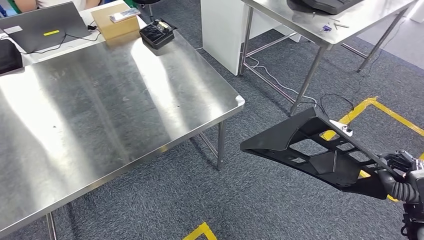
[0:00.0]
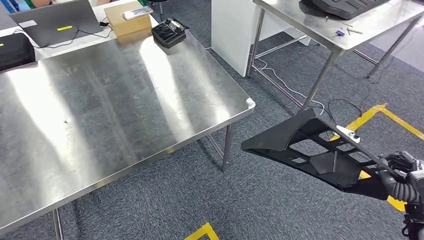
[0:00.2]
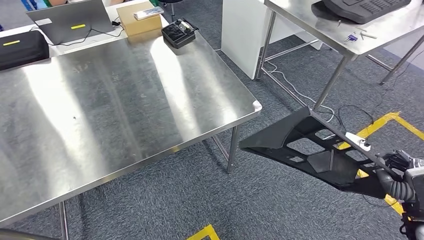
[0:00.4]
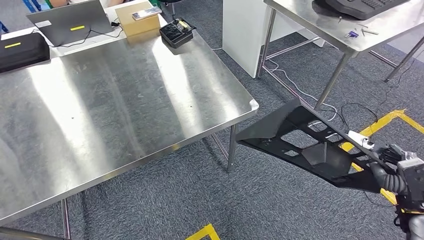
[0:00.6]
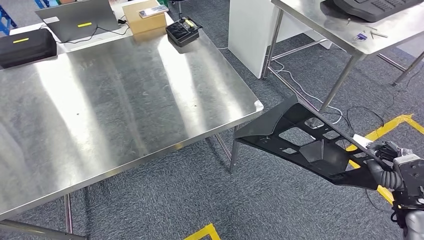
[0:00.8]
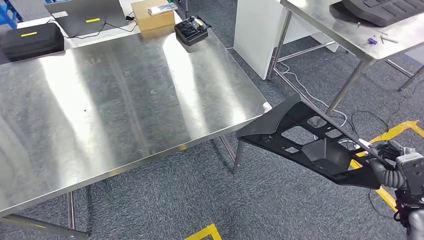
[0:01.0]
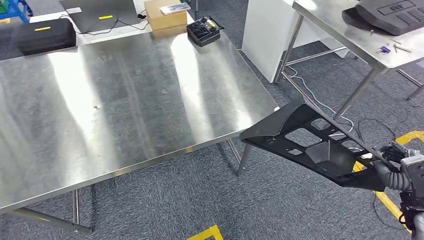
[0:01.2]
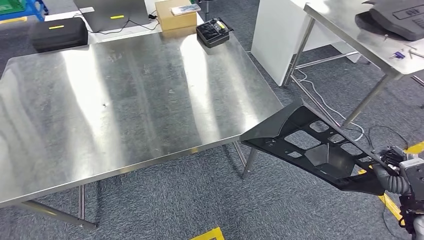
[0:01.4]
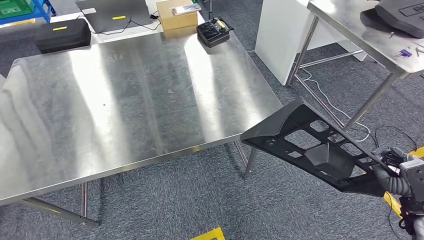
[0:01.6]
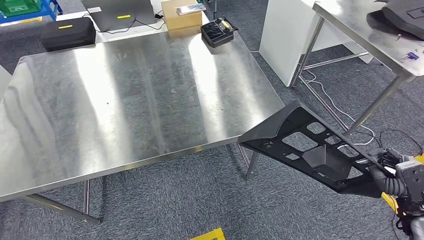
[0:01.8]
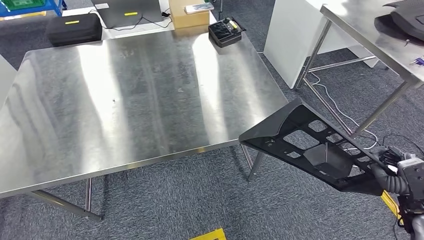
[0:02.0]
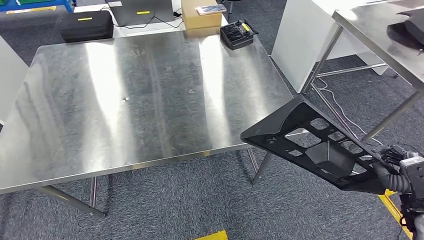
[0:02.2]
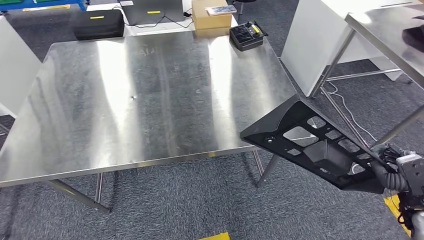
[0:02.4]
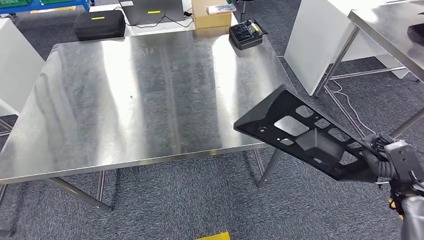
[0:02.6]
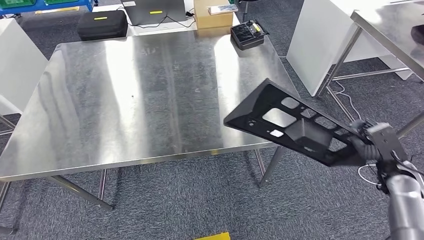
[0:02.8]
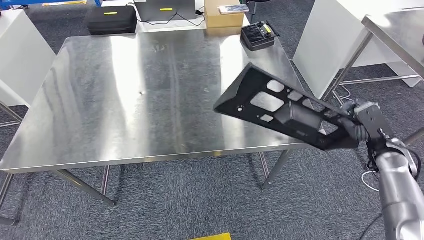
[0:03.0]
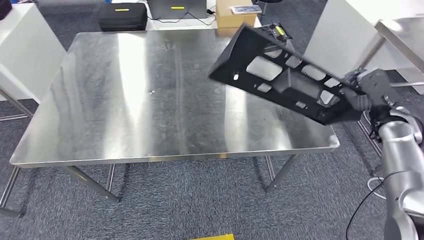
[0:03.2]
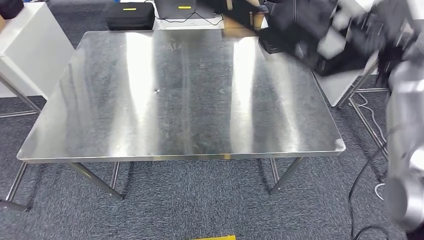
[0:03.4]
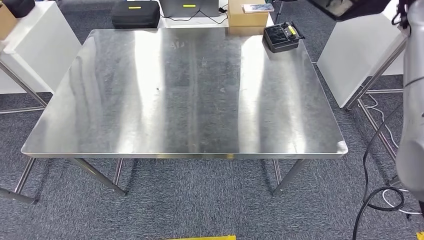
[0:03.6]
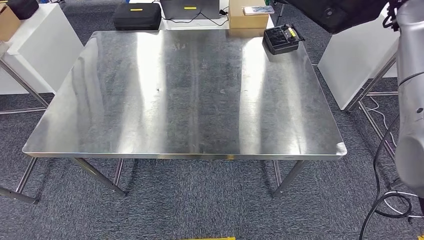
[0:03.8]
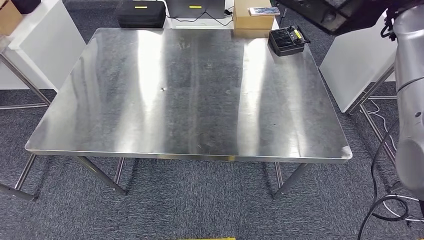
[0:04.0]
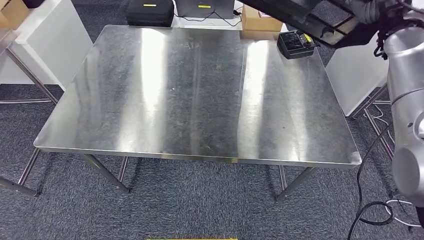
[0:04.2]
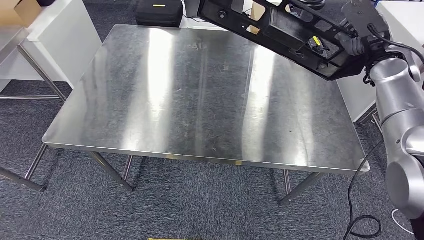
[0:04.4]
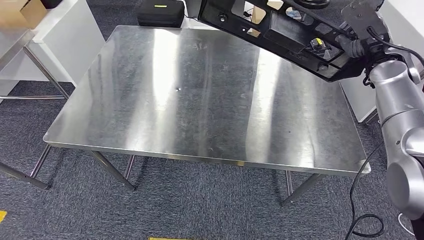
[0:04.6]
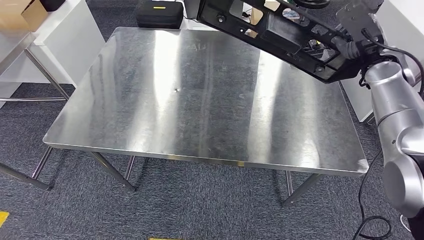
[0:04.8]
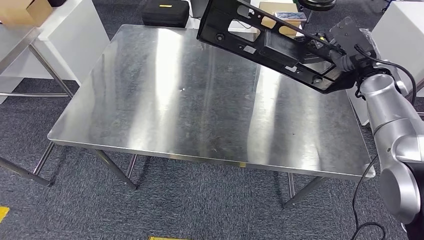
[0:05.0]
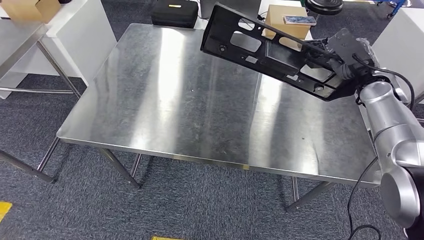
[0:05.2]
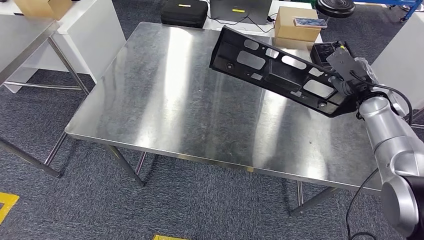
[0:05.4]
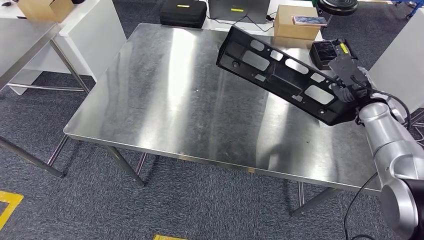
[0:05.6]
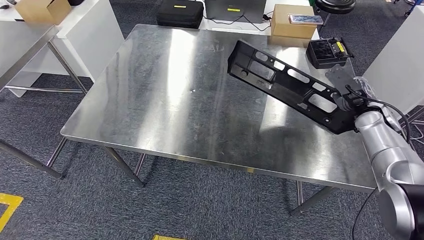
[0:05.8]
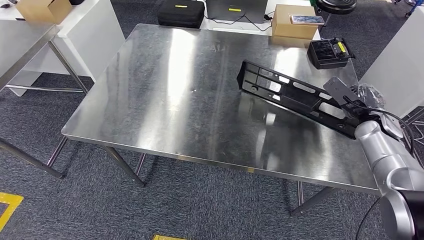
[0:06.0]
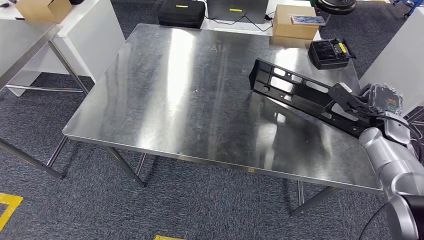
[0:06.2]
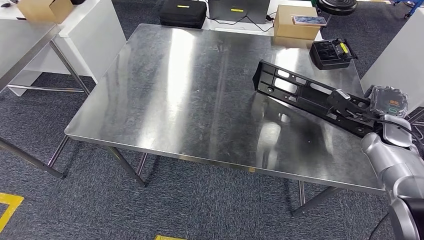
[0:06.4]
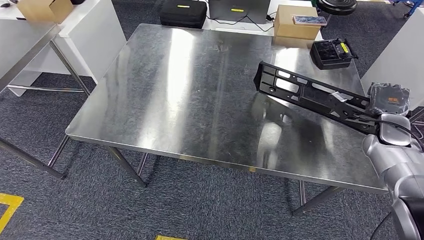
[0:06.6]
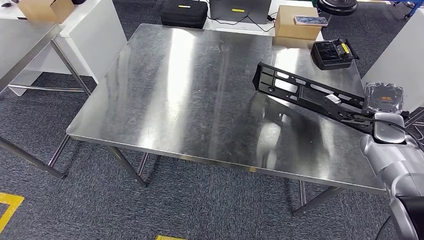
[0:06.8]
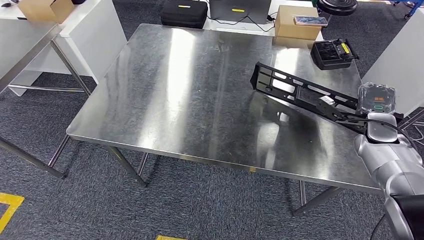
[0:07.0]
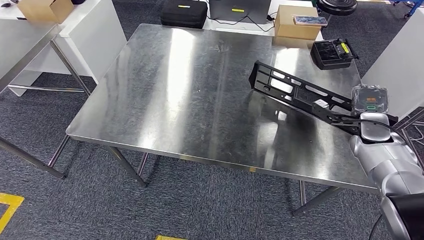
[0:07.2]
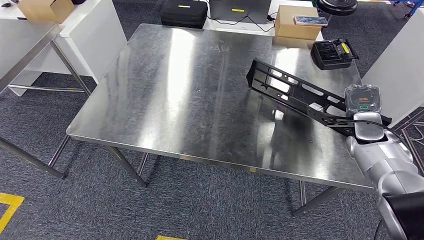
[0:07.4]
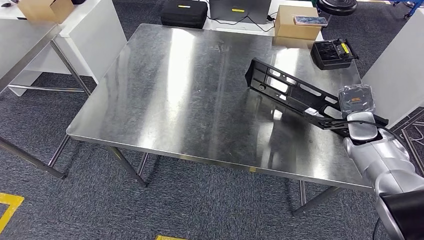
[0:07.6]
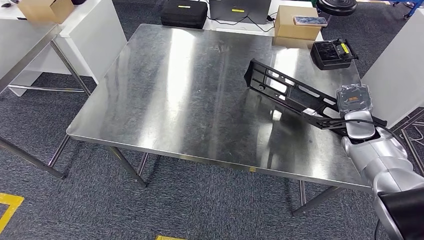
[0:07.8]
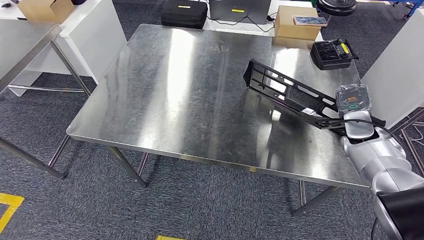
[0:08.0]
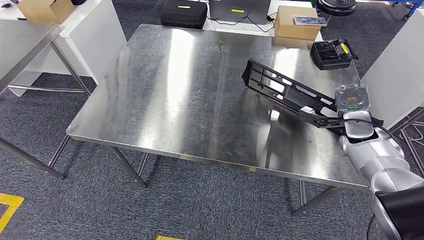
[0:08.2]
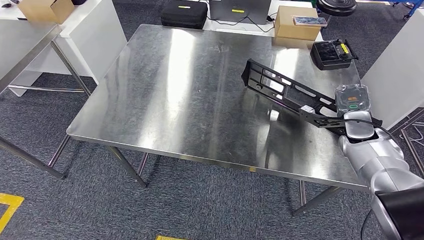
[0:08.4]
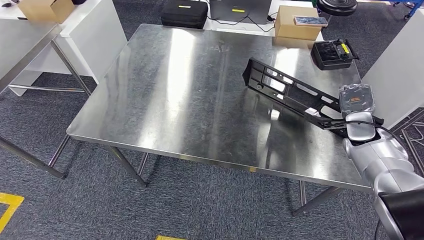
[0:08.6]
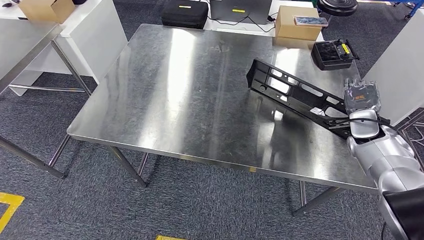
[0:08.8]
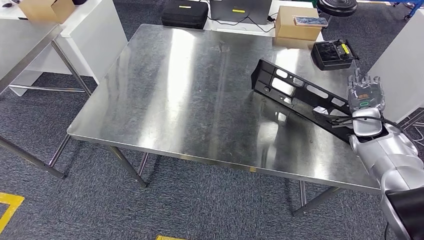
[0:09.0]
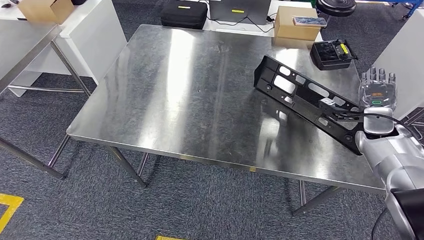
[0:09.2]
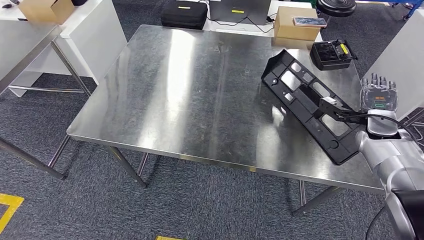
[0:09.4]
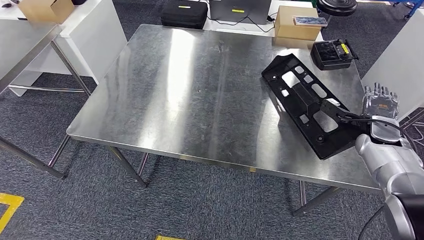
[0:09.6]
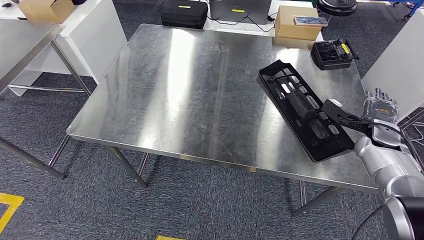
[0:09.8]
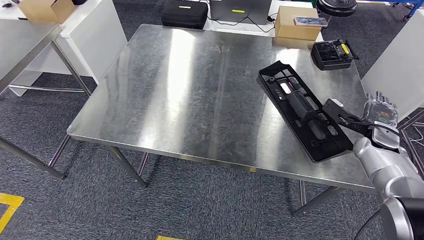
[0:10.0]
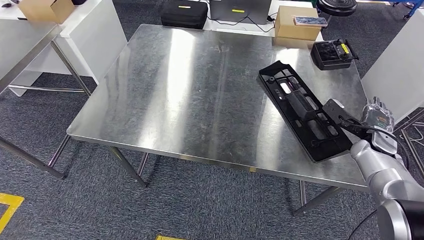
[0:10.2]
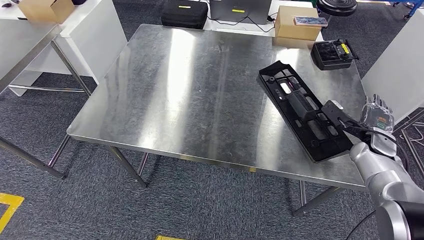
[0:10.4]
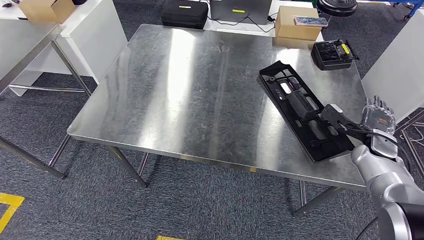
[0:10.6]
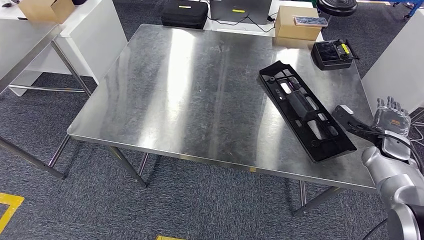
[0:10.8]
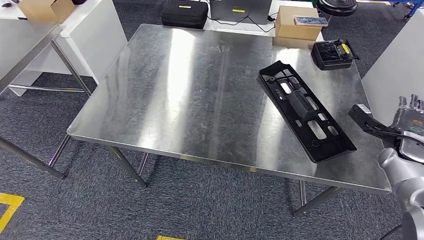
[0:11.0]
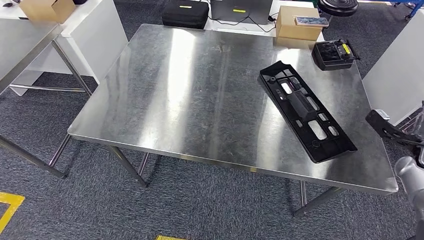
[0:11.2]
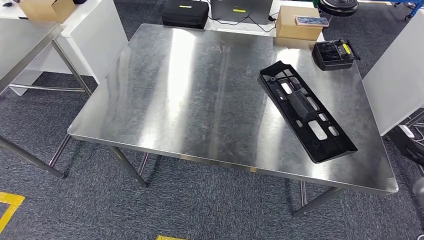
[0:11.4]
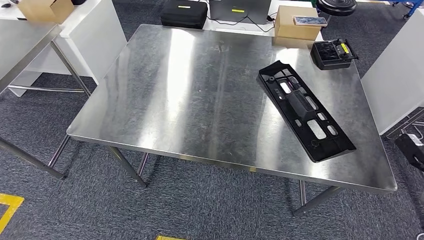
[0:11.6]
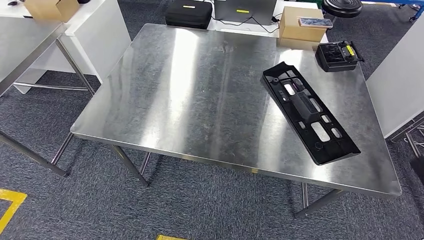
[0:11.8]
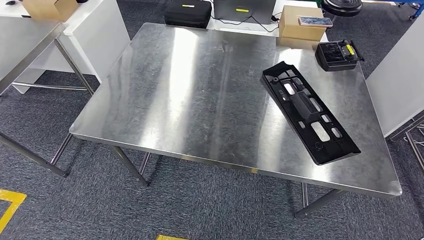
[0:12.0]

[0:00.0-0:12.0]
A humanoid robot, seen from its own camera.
Step, 0:00.0 to 0:11.6: Insert the large material into the corresponding slot on the workbench.
0:07.6 to 0:09.0: The hands make only small movements.
0:09.0 to 0:10.4: The right hand ends up roughly 5 cm from where it was.
0:10.4 to 0:12.0: The right hand moves backward and to the right, some 35 cm.

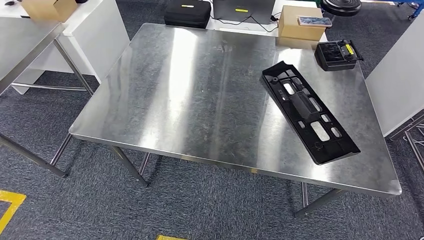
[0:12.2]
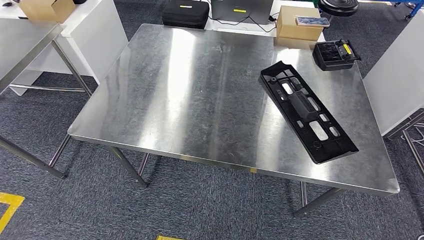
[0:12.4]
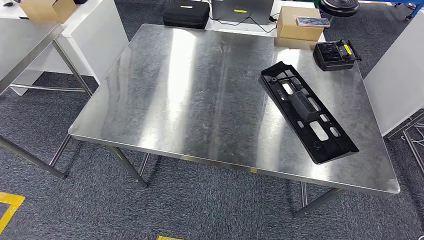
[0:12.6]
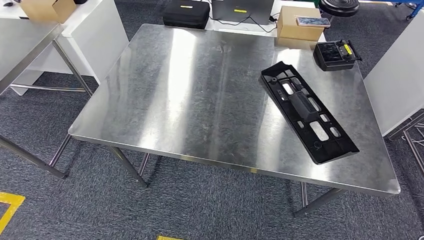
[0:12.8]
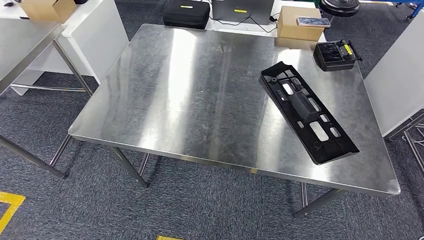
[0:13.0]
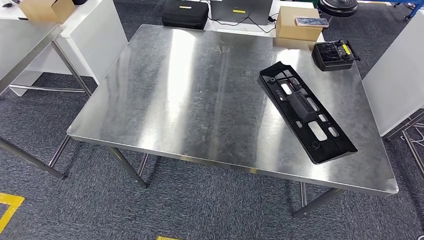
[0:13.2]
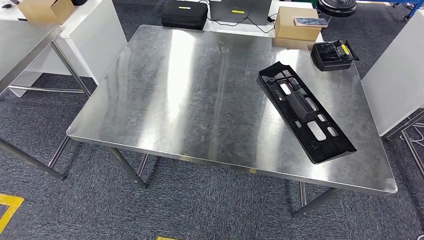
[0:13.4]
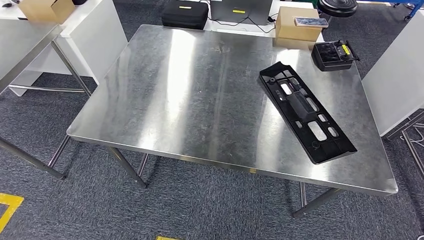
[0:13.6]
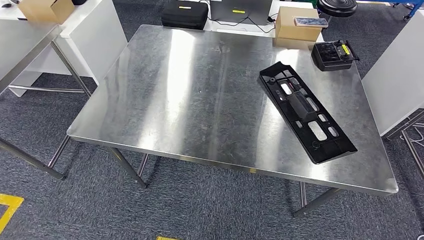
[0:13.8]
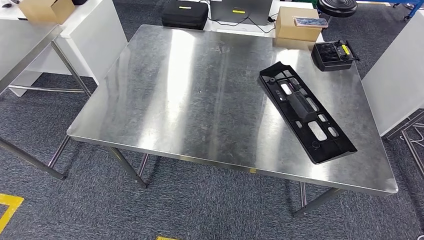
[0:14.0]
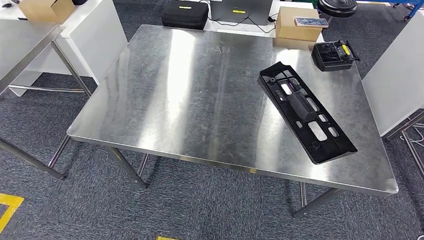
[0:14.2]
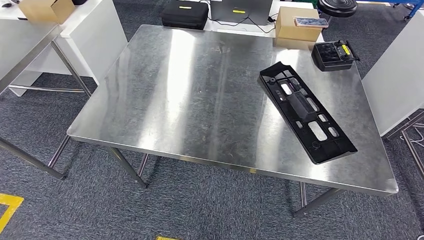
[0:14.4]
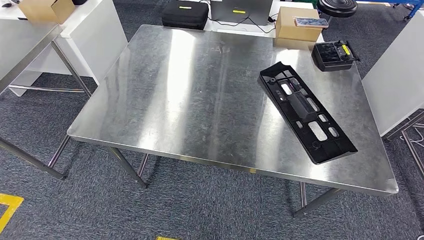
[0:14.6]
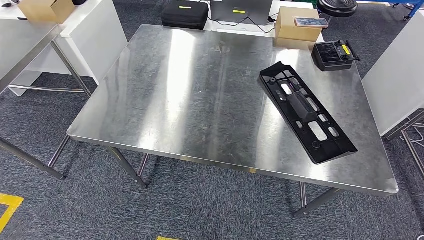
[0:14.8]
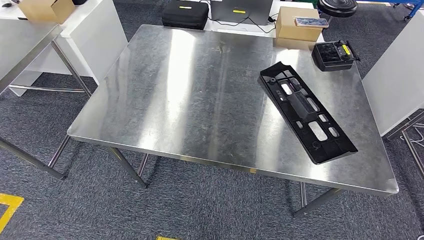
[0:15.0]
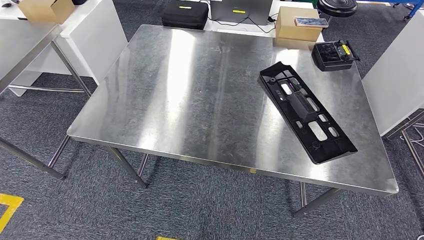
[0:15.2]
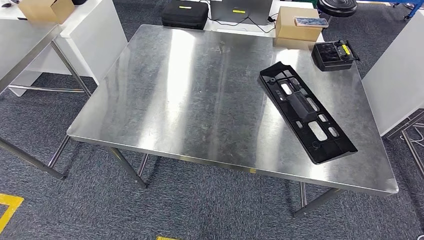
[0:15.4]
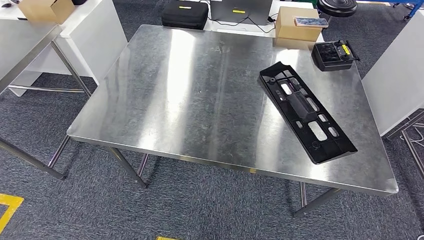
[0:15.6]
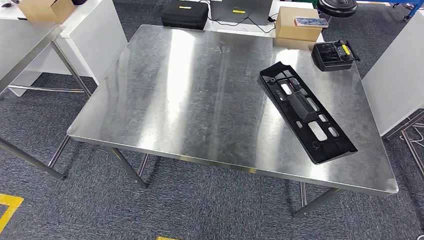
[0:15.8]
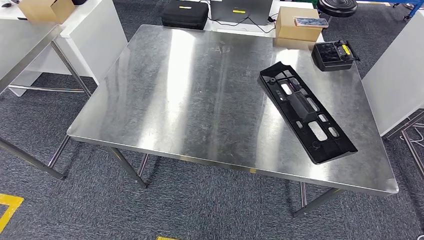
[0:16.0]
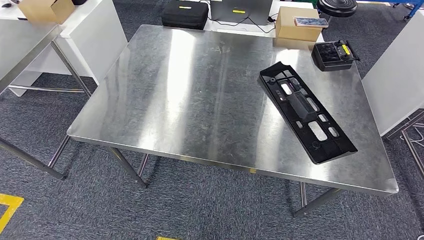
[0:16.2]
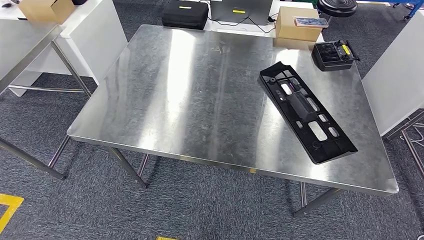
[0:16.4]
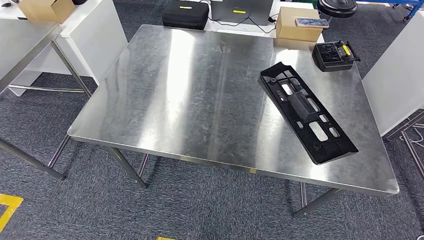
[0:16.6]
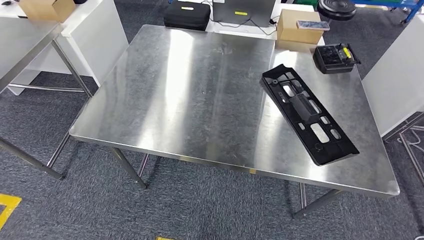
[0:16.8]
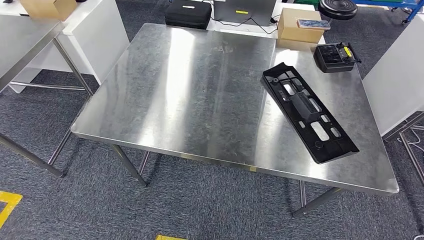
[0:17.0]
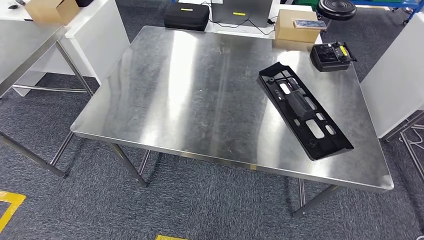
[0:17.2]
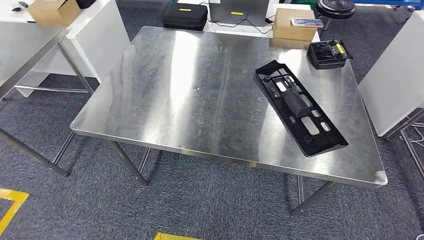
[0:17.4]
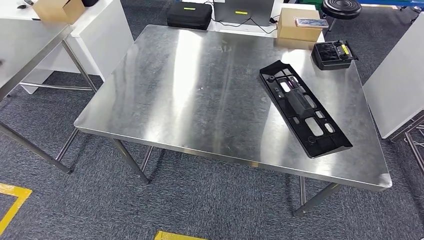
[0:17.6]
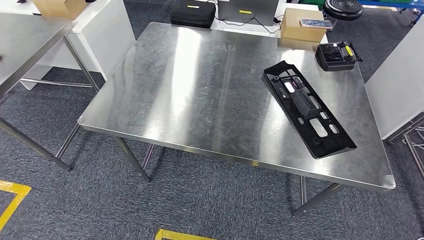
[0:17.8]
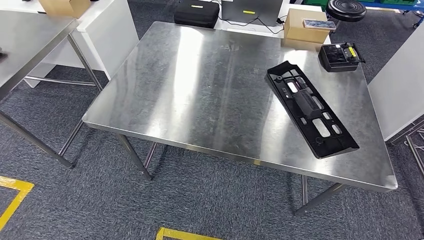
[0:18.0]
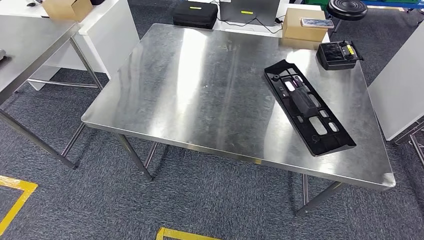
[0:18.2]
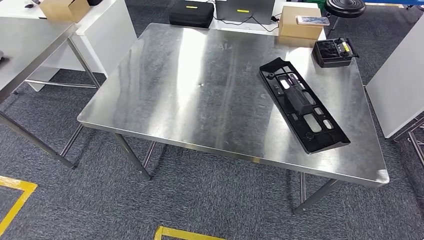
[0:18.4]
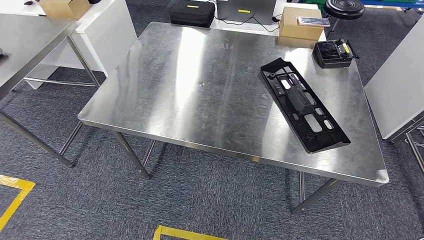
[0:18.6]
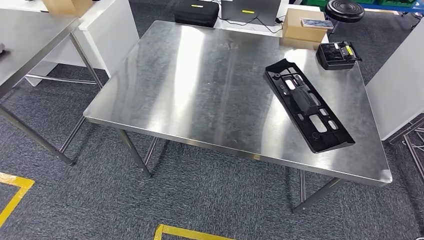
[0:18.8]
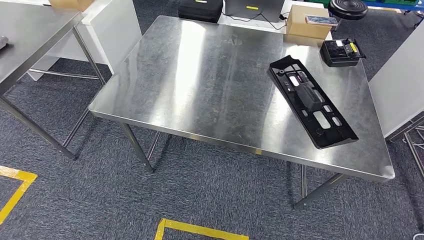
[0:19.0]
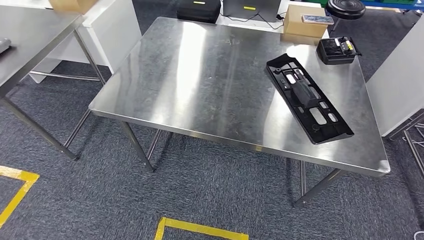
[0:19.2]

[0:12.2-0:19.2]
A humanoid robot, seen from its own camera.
0:12.2 to 0:13.6: The right hand is displaced to the left and downward by roughly 35 cm.
